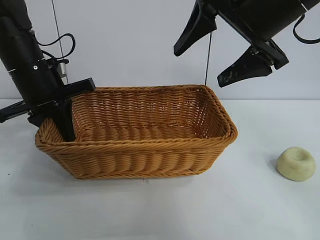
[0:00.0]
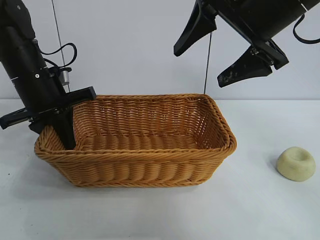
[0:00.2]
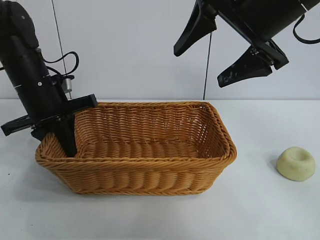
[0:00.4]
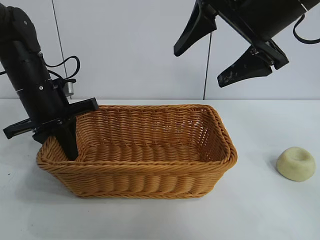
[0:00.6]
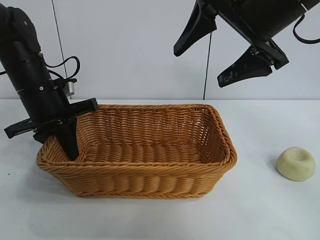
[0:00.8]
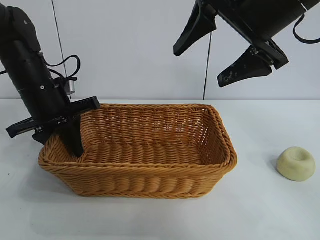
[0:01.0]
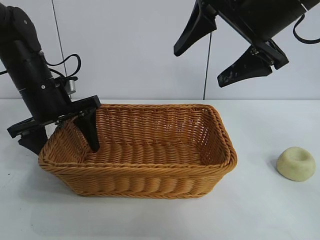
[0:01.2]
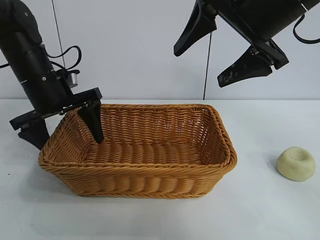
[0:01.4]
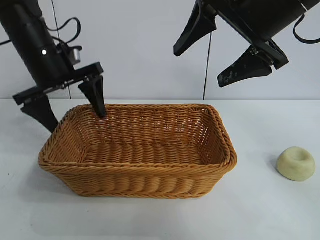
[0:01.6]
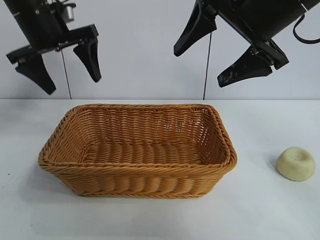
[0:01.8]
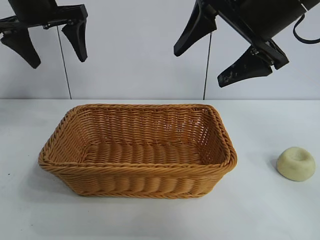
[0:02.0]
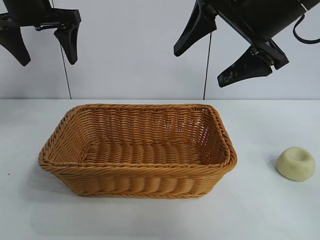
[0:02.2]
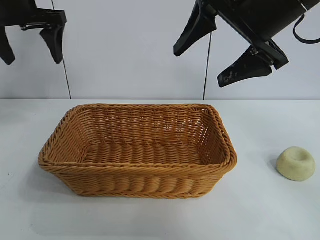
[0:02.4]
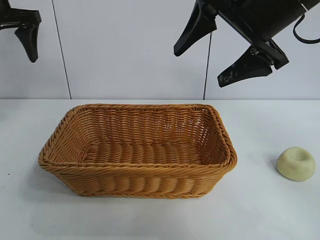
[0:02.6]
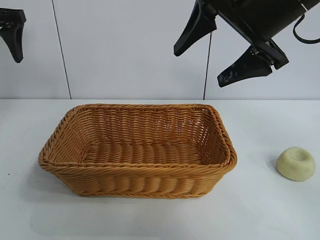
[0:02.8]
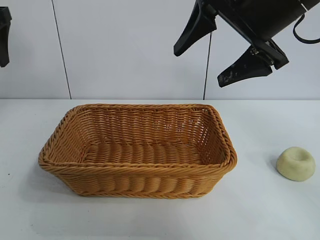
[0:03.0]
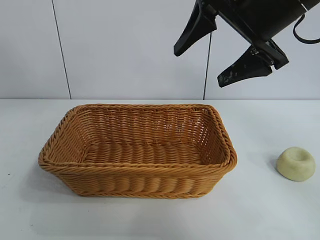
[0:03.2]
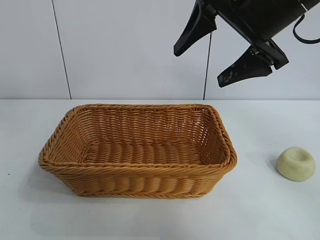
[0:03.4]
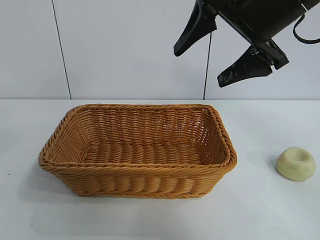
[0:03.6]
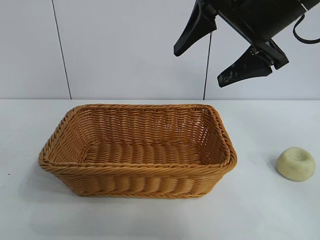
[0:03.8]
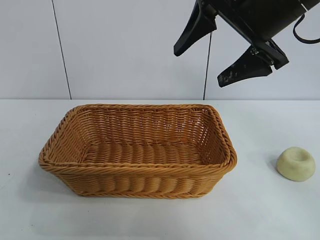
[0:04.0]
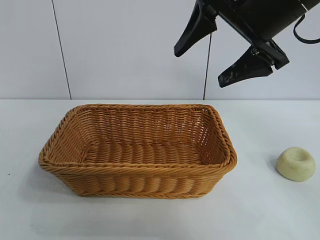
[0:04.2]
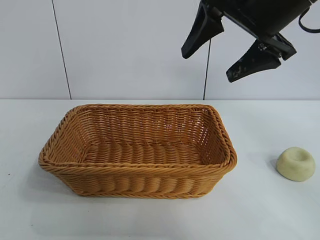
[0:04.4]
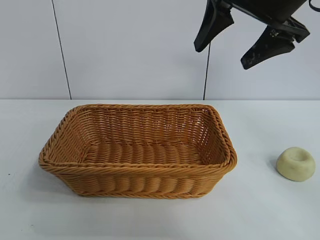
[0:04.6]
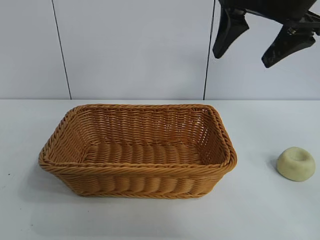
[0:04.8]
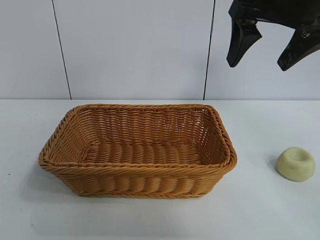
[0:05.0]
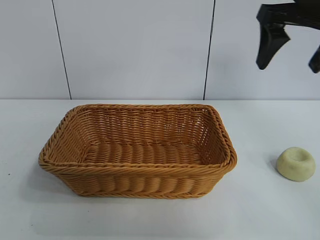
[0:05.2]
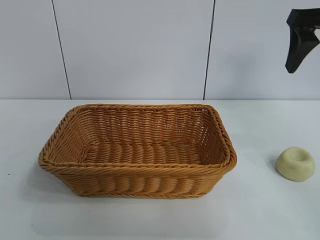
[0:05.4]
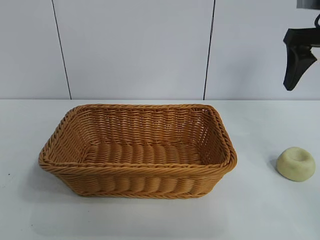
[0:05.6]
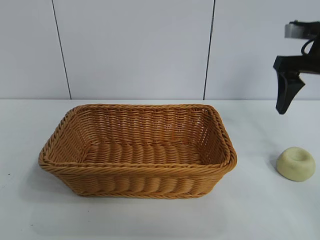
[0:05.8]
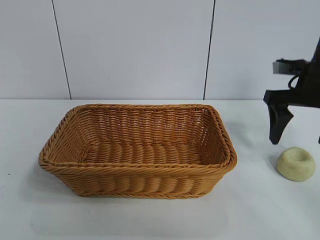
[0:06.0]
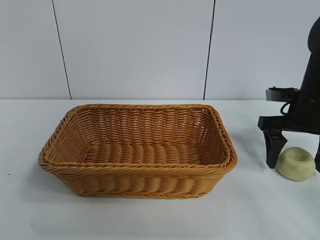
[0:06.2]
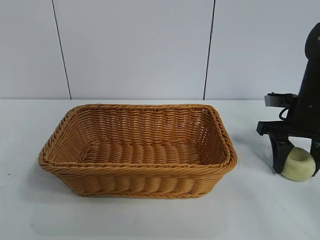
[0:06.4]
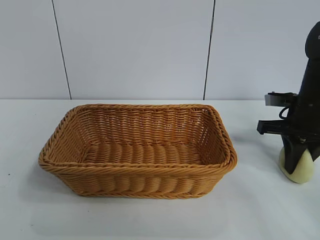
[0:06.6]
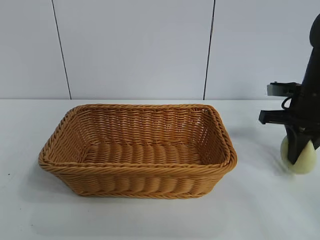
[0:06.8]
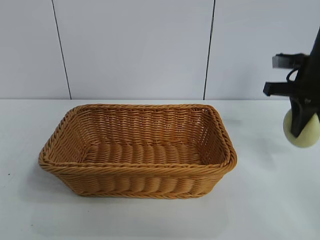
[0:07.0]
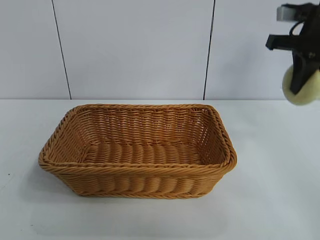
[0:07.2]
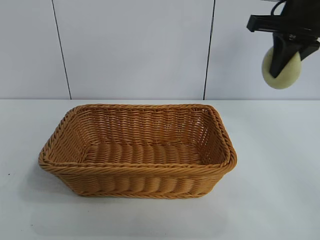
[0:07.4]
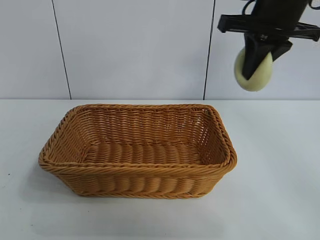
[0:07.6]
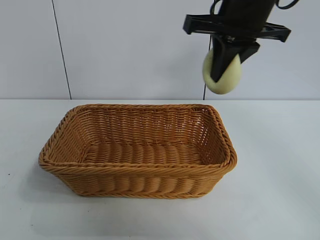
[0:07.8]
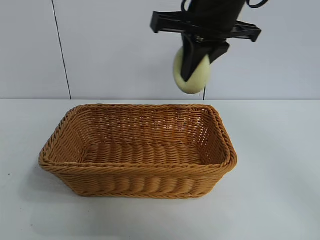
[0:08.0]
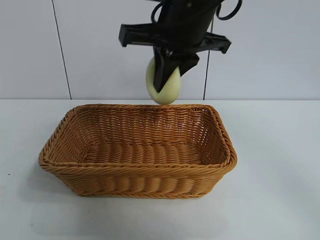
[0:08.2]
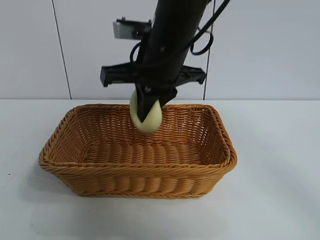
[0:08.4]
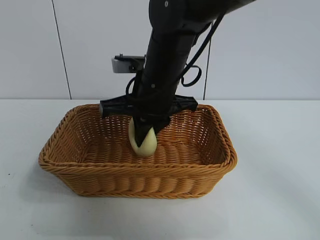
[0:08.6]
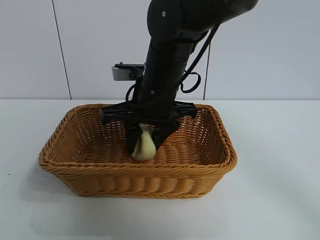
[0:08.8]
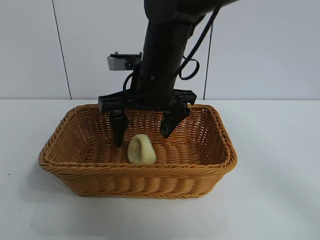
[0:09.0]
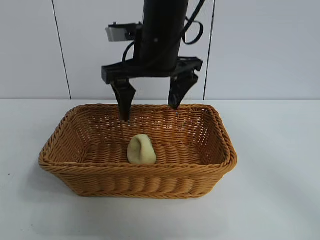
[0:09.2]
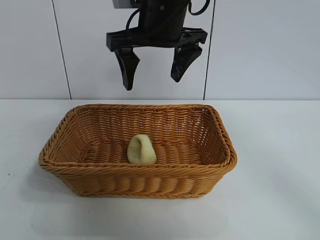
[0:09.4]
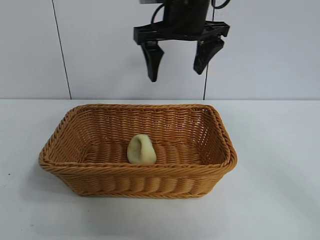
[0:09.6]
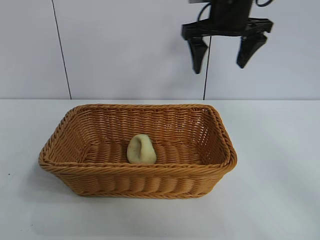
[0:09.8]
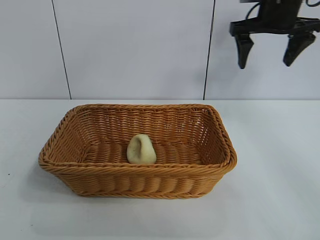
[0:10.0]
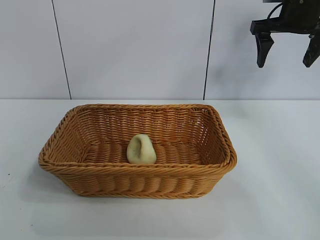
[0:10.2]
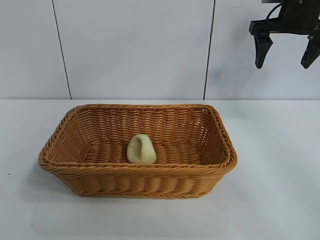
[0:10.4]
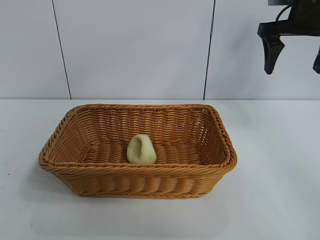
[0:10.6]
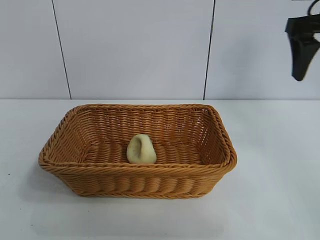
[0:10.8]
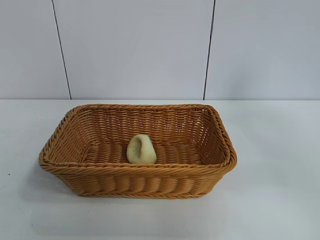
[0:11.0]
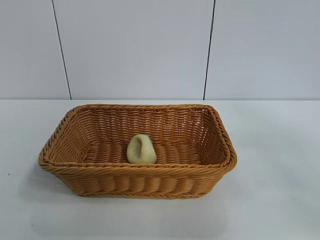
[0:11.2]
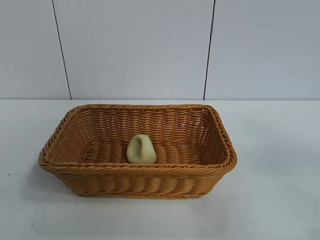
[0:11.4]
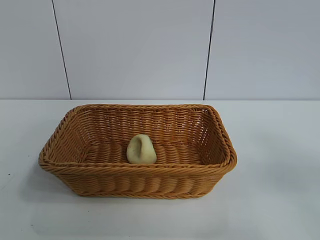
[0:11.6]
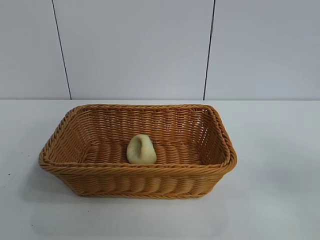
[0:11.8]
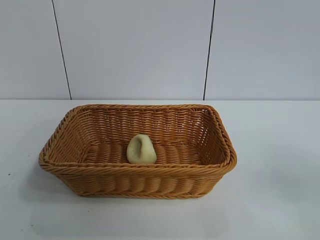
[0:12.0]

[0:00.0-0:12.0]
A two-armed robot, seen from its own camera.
Task of the whole recording: pick up the egg yolk pastry and put it into the basket.
Step, 0:01.6 to 0:06.6: Grasp egg yolk pastry with right gripper.
Step, 0:06.8 to 0:09.0: Place the egg yolk pastry in the basket with right gripper.
